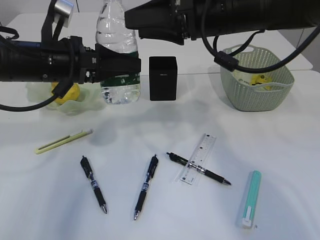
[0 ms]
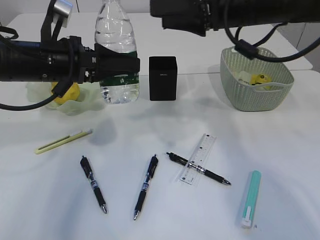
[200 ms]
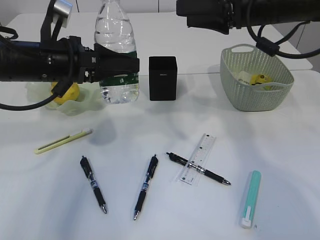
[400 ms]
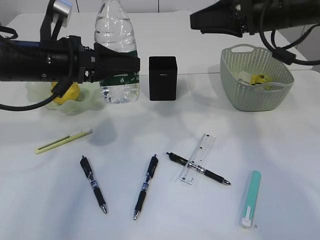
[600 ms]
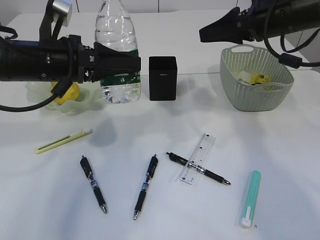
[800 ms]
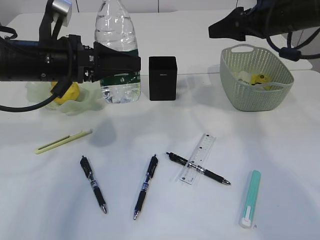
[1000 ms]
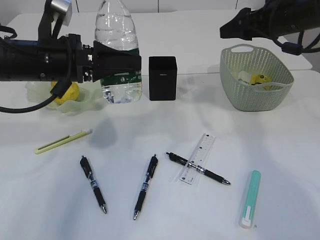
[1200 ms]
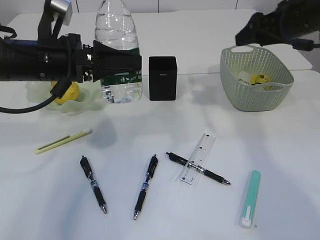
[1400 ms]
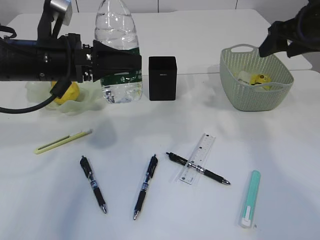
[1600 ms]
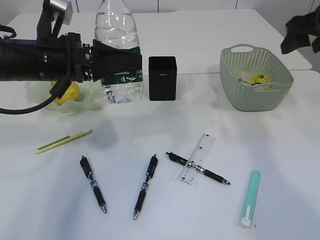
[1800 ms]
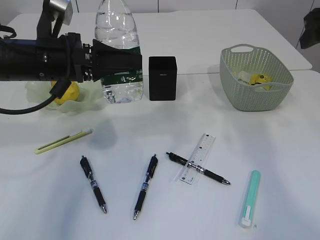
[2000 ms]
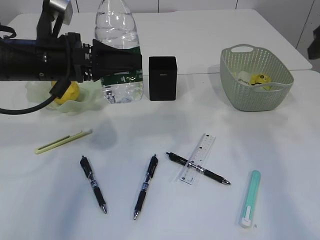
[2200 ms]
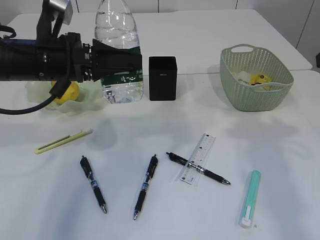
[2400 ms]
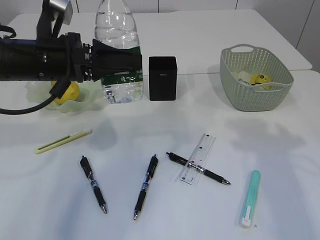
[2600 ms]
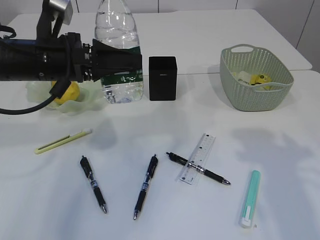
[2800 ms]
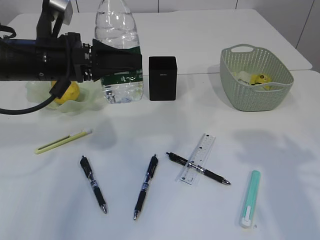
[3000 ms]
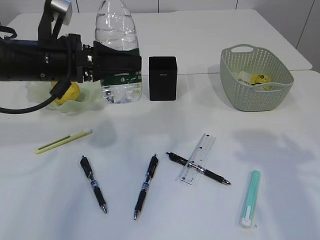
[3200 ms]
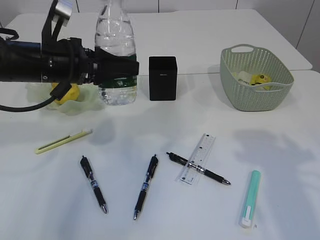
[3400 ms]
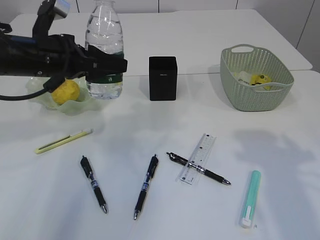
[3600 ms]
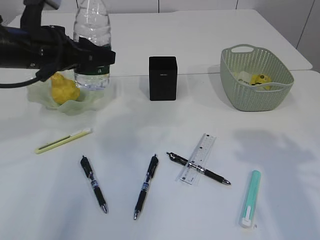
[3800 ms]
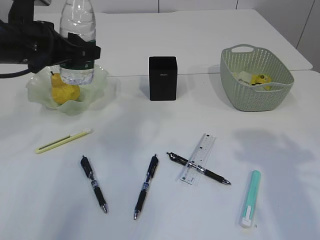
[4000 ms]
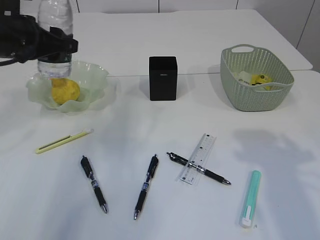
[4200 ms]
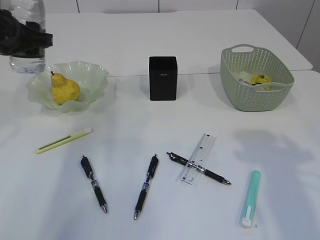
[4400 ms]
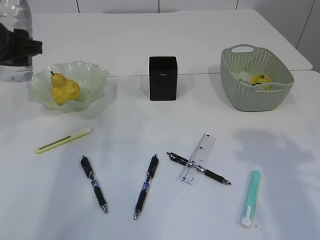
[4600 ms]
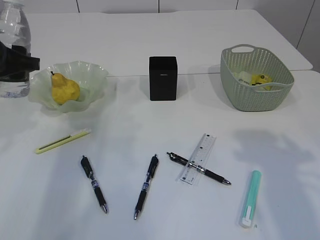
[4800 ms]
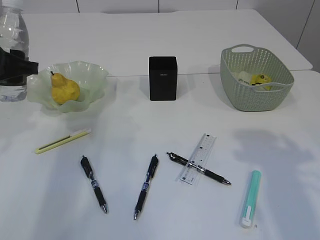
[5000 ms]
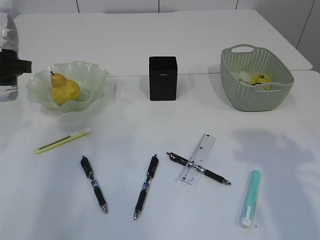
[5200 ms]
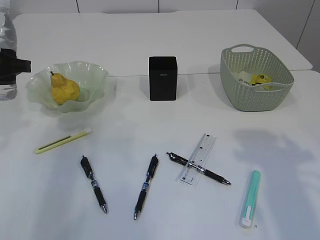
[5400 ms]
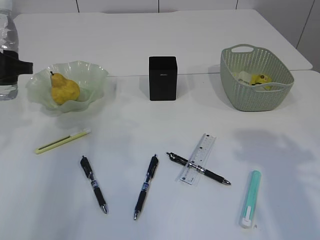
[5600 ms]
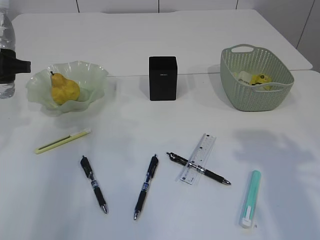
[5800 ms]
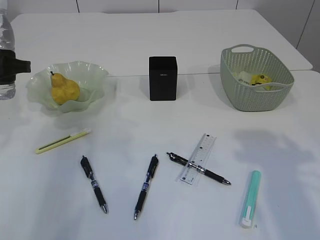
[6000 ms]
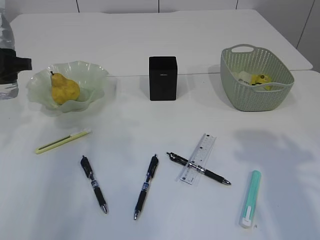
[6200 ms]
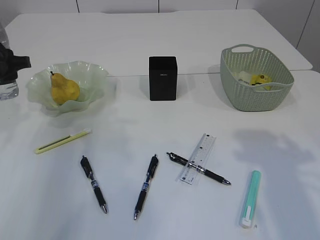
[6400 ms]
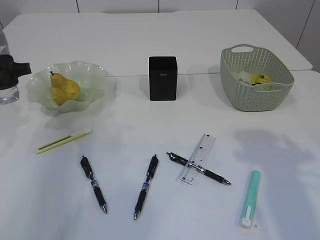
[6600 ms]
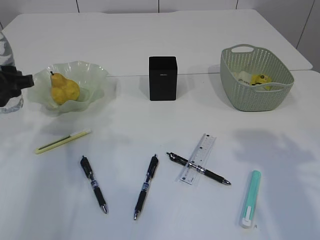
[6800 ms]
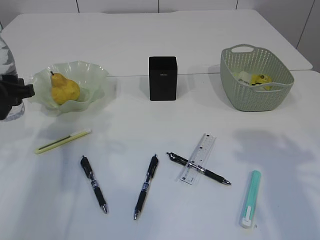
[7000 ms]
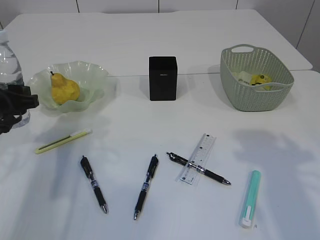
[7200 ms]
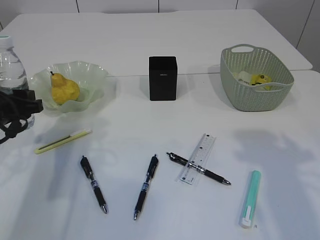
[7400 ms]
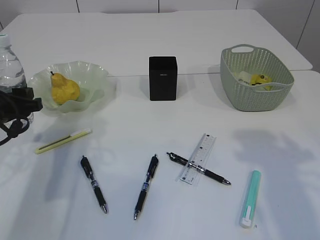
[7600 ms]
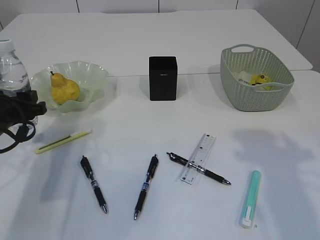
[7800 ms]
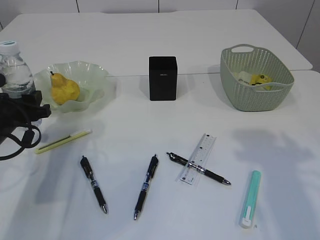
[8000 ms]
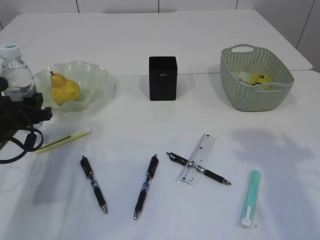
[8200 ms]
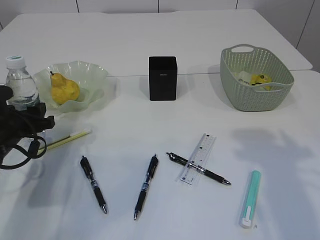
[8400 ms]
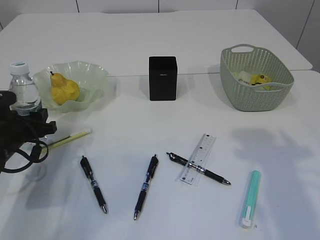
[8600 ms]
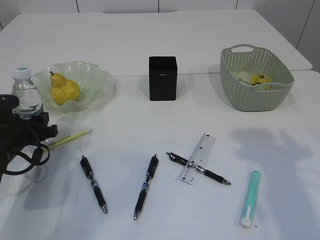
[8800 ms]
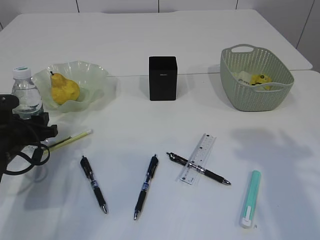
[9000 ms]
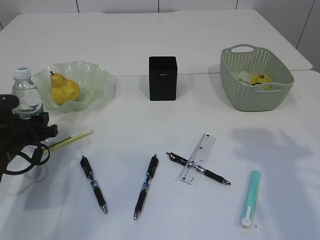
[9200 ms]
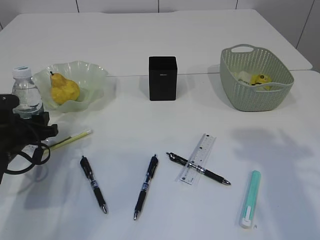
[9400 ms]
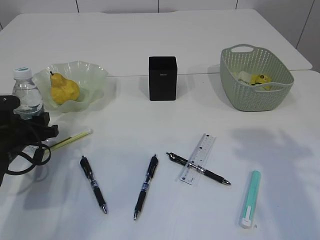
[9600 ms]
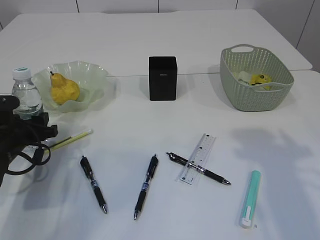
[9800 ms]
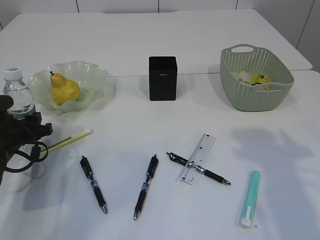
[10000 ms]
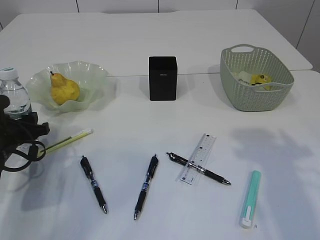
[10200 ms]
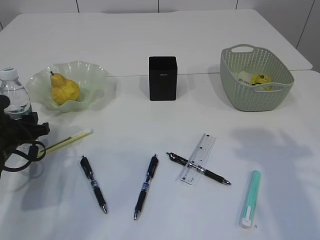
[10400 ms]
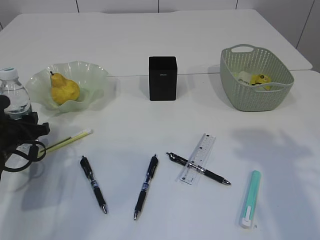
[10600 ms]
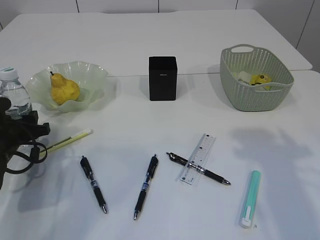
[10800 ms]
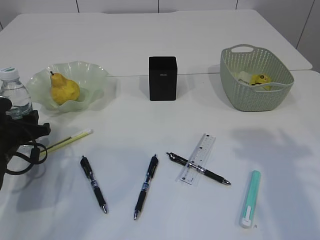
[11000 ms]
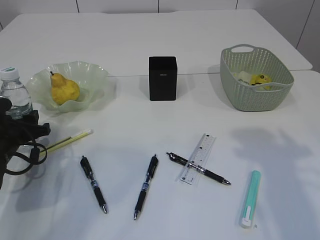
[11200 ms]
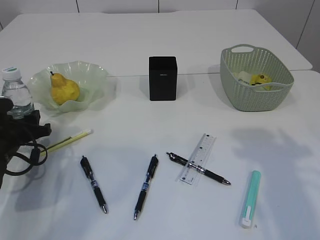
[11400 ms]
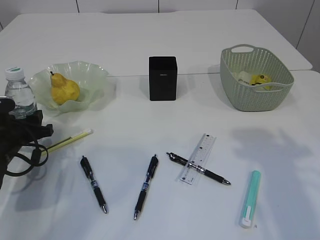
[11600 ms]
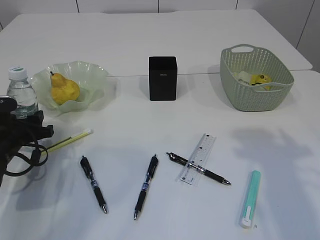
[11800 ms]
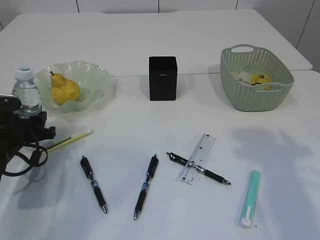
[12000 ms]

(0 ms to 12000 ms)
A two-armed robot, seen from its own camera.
0 ms - 1600 ms: The right gripper shifts some 15 cm to the right.
1600 ms - 3000 ms: The right gripper travels backward by approximately 20 cm.
3000 ms - 4400 ms: The left gripper travels to the left by approximately 10 cm.
4400 ms - 6000 ms: The left gripper shifts by roughly 5 cm.
6000 ms - 7600 ms: The left gripper goes about 10 cm downward.
7600 ms - 9000 ms: The left gripper moves downward, roughly 5 cm.
9000 ms - 12000 ms: There are only small adjustments of the grippers.

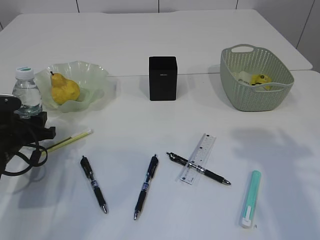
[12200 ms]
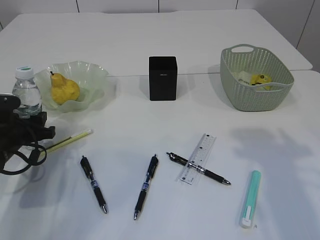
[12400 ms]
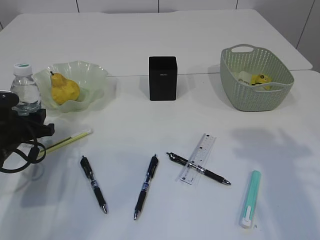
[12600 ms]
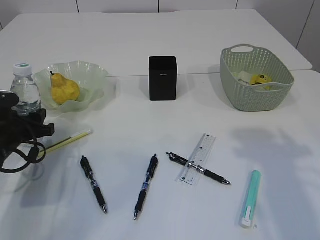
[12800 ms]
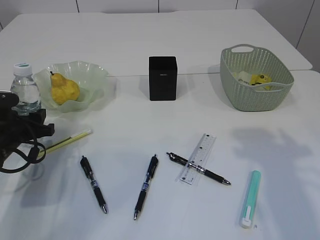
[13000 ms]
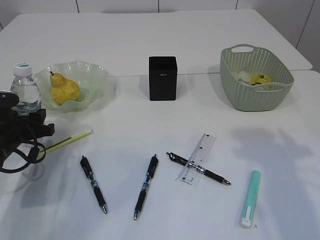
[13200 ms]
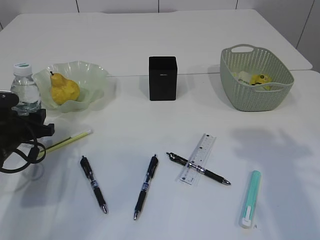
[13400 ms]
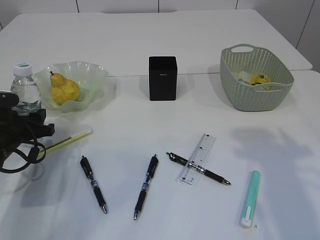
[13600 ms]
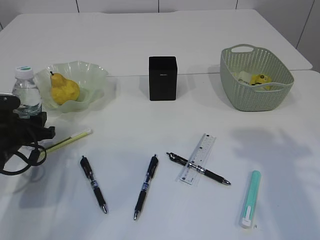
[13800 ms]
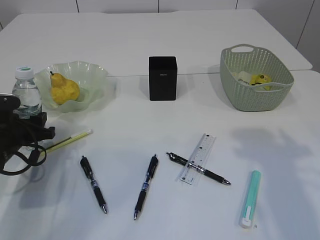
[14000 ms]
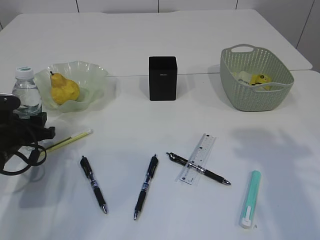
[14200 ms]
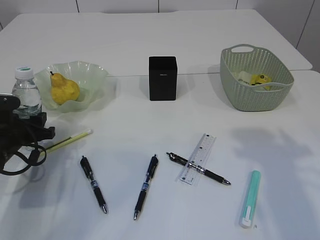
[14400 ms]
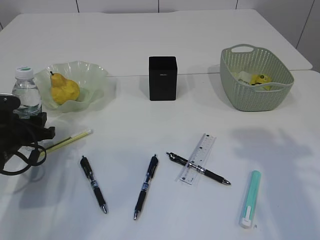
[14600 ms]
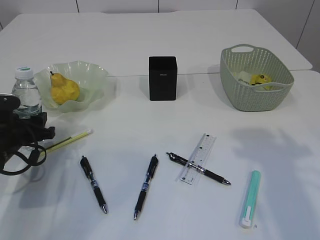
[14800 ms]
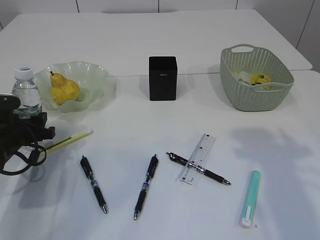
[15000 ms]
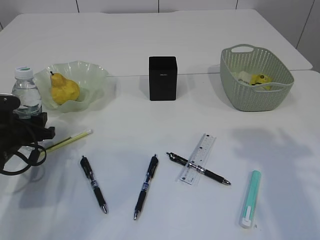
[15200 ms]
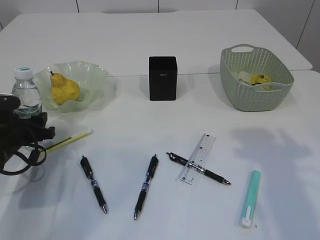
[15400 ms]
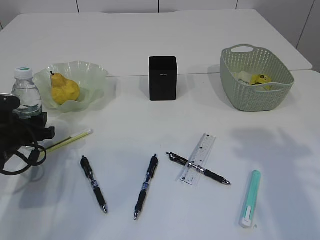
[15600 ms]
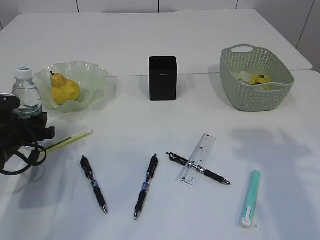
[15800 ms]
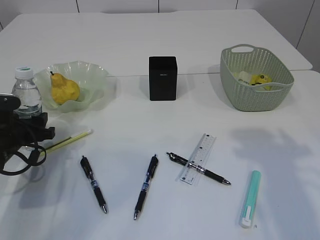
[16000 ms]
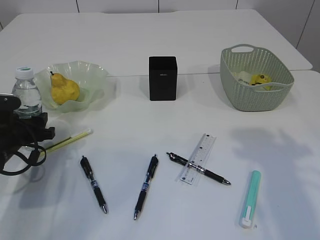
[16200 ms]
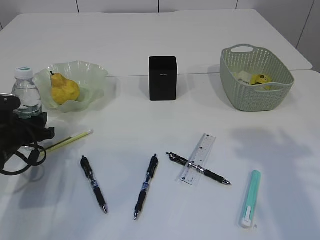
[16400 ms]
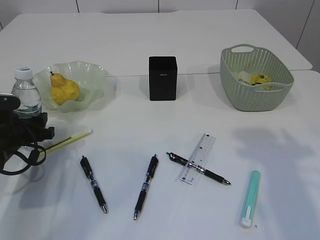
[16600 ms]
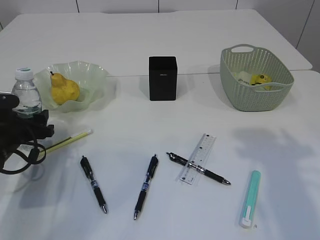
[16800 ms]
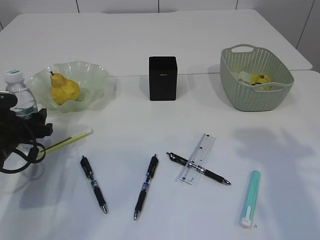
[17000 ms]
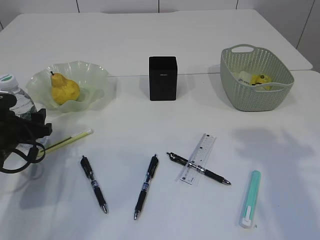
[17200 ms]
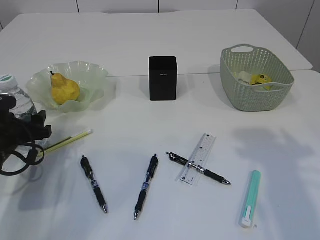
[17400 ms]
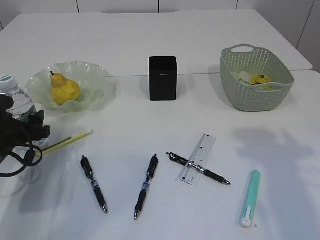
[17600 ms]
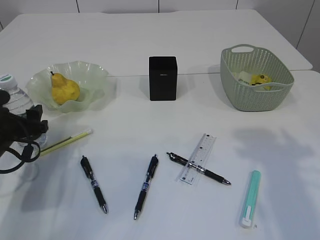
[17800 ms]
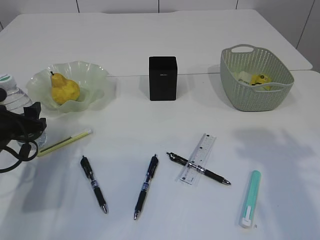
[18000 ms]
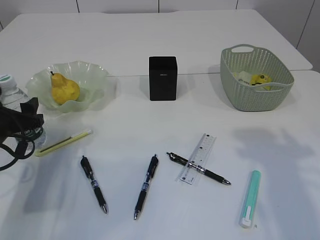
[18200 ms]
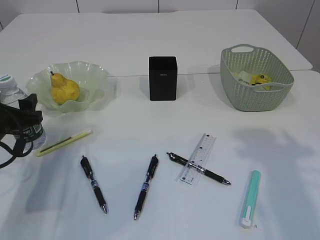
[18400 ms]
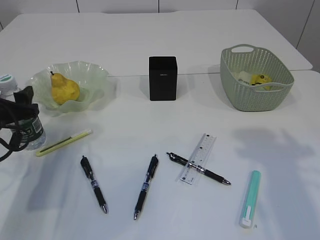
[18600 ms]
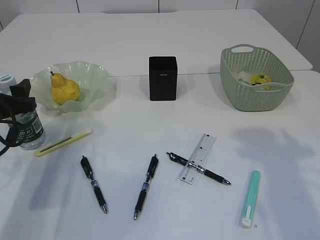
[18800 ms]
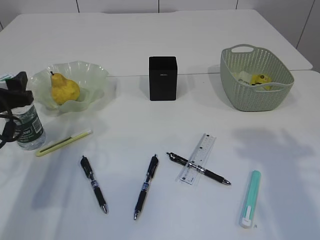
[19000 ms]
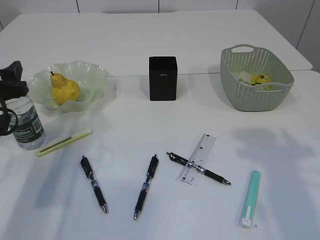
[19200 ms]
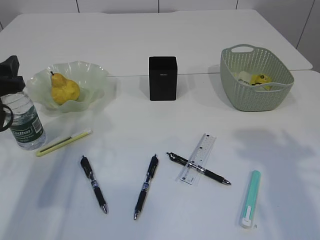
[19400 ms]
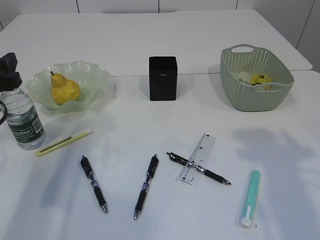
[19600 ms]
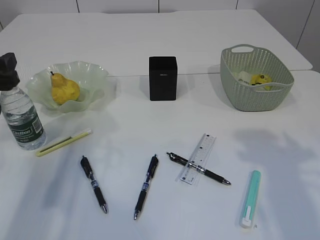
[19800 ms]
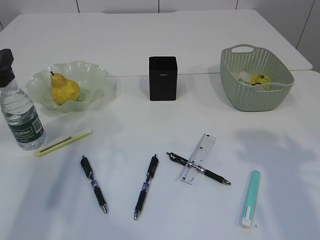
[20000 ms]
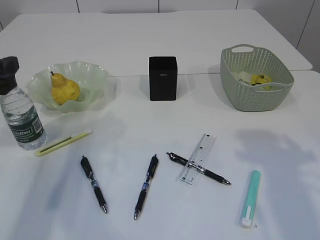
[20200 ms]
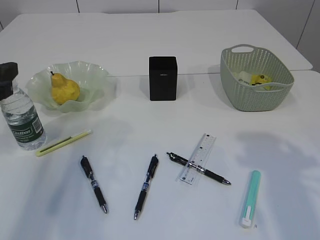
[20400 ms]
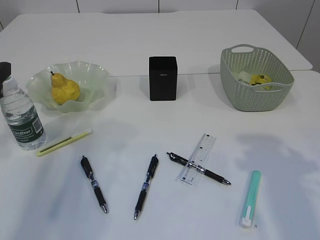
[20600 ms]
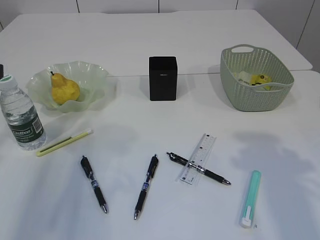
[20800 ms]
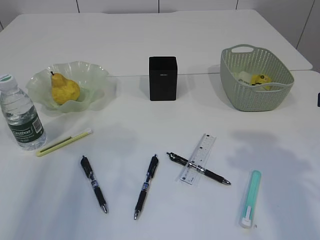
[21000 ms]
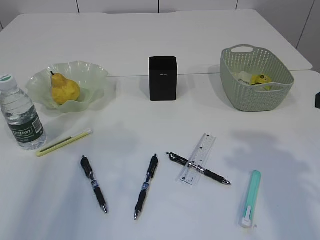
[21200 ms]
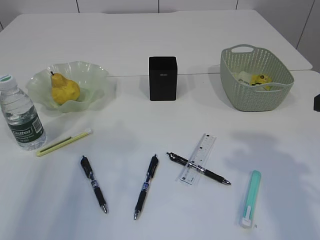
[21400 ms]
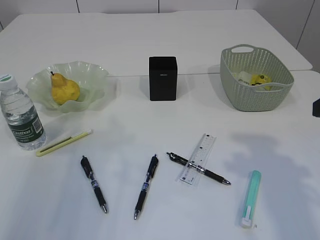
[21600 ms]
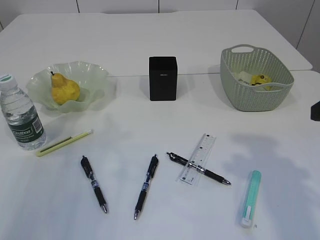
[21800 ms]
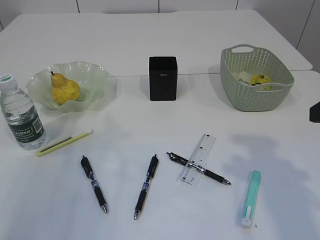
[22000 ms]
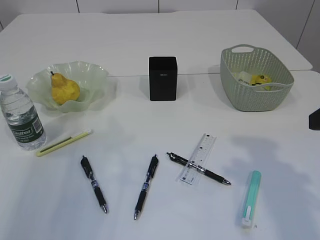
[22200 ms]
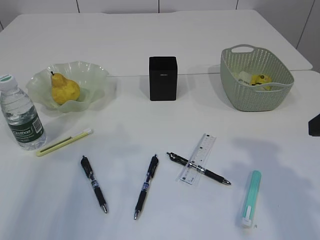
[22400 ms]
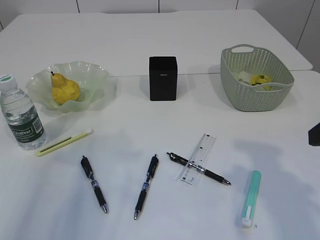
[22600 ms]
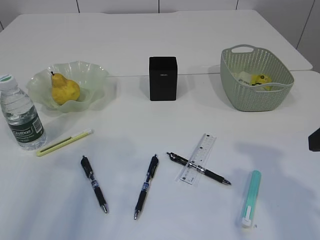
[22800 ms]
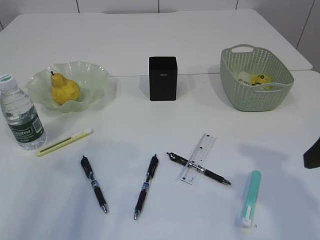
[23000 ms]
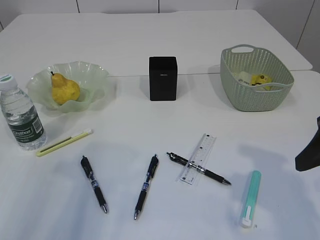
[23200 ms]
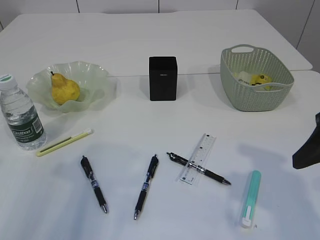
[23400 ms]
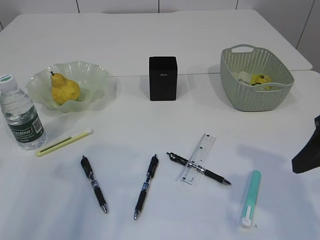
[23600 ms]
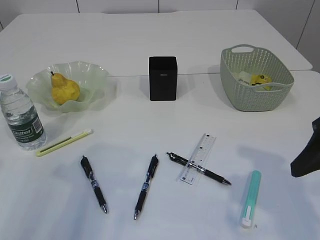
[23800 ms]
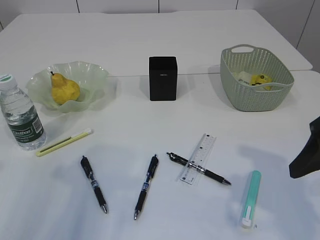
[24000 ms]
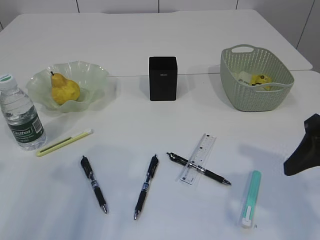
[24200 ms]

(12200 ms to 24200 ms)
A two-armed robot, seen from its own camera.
Step, 12200 ms - 20000 ms: Place the bottle.
12200 ms - 16600 ms: Both grippers stay about where they are.
16600 ms - 18200 ms: The grippers make only small movements.
18200 ms - 19800 ms: The left gripper travels upward by some 10 cm.
19800 ms - 21200 ms: The left gripper heads backward and upward, covering approximately 10 cm.
